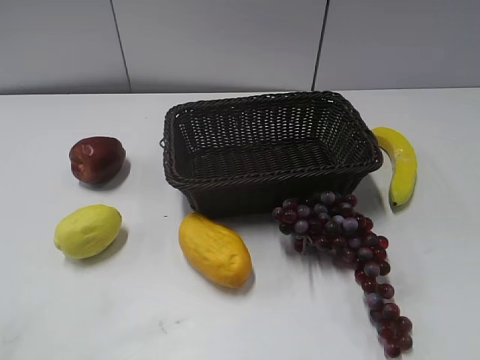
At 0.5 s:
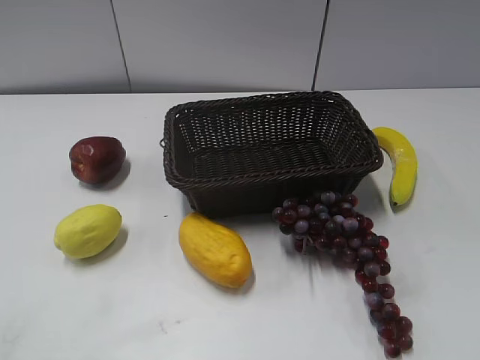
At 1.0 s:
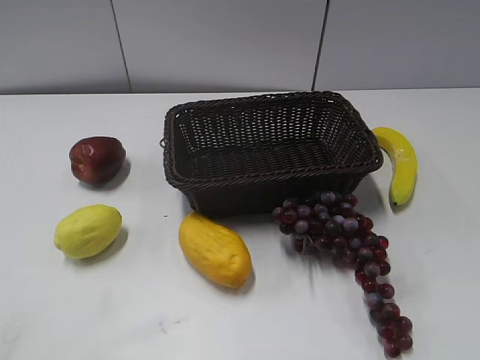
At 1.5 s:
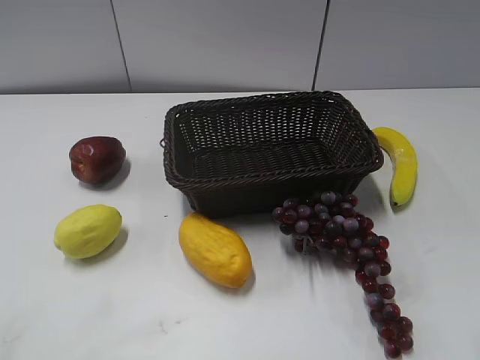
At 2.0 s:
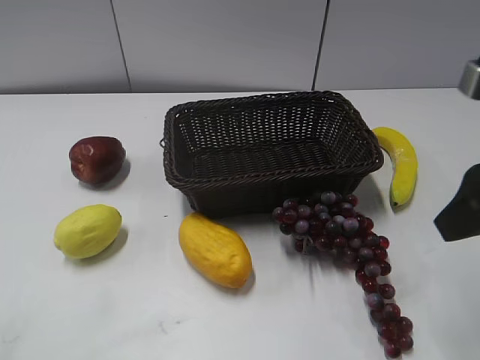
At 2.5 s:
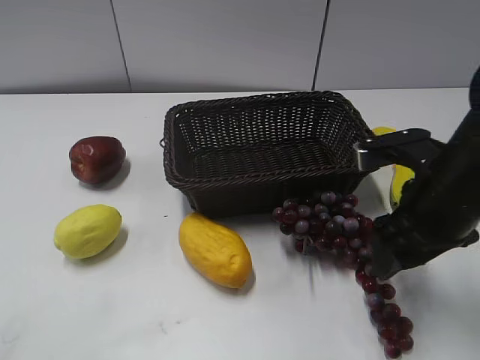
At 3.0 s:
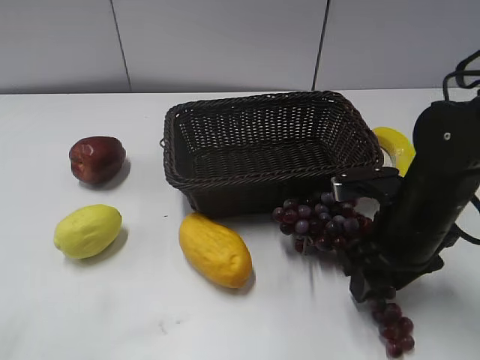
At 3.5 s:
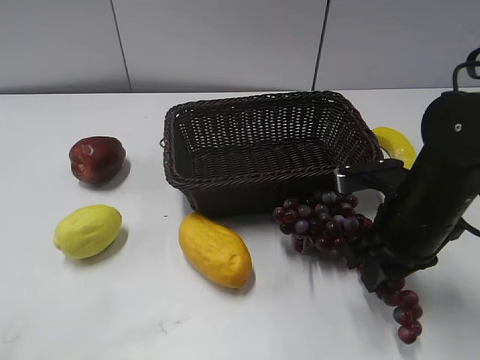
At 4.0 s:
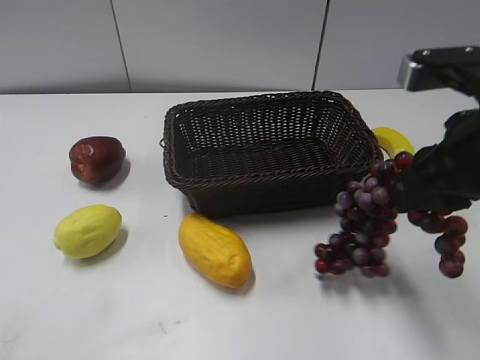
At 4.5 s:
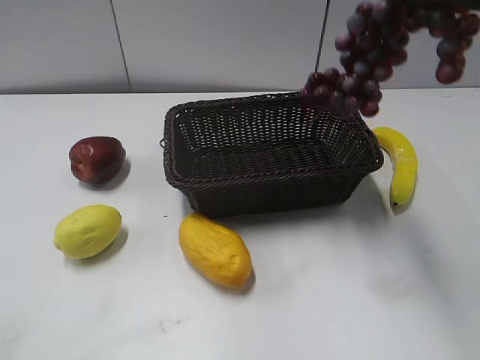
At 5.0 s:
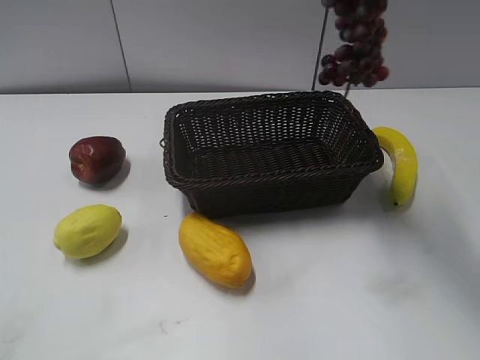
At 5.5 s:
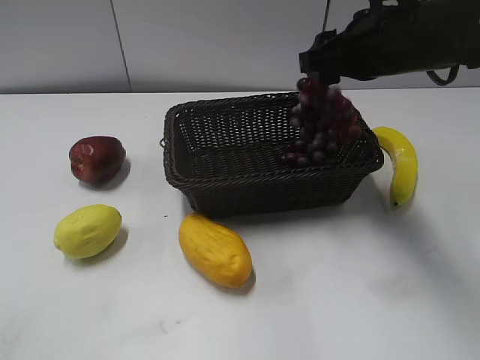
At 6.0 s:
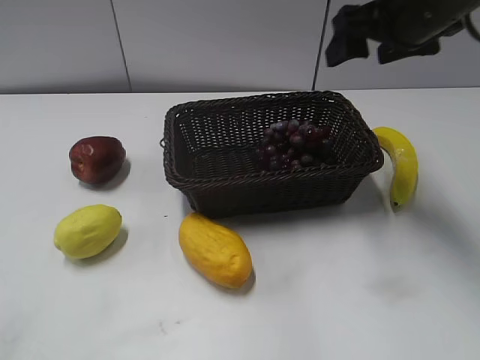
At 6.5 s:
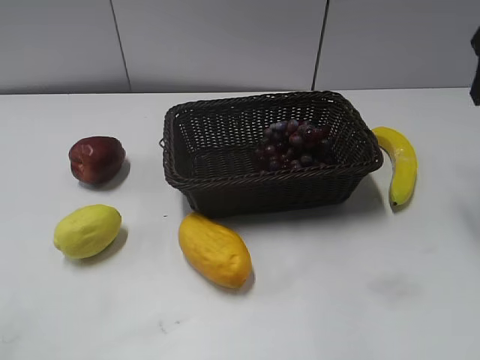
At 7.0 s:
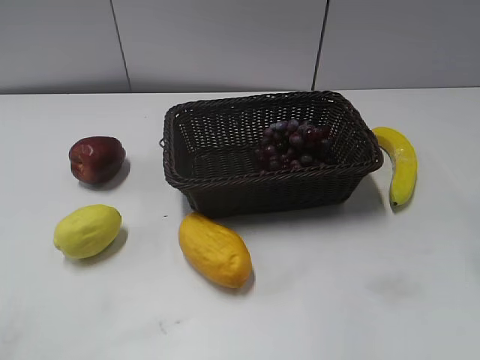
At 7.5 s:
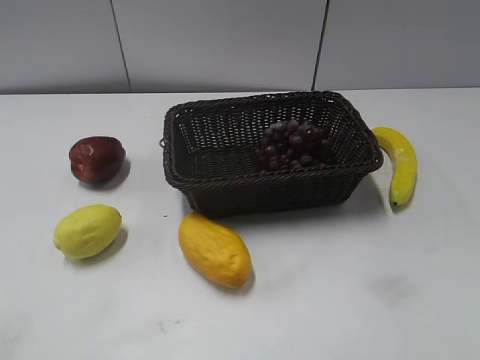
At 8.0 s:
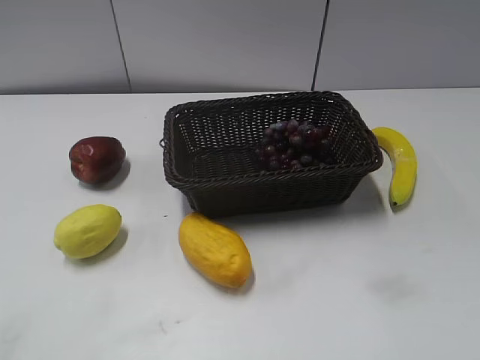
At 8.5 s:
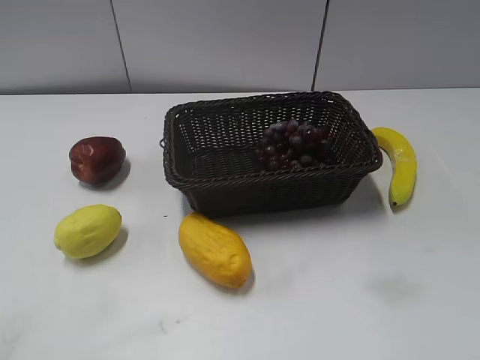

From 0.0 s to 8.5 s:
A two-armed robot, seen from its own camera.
Step, from 2.0 s to 3.5 s: Grasp the grape with right gripper.
Step, from 4.0 s to 5.5 s: Place the grape in the basket with right gripper.
From 2.0 s to 4.0 s: The right gripper reaches roughly 15 cm downward, then returns, and closes.
From 4.0 s to 6.5 s: The right gripper moves forward and to the right, about 15 cm, and opens up.

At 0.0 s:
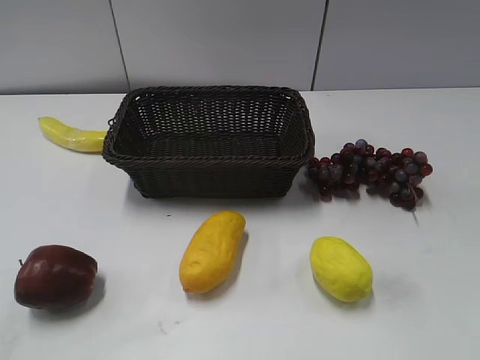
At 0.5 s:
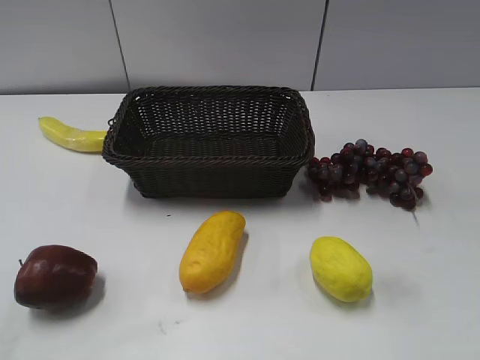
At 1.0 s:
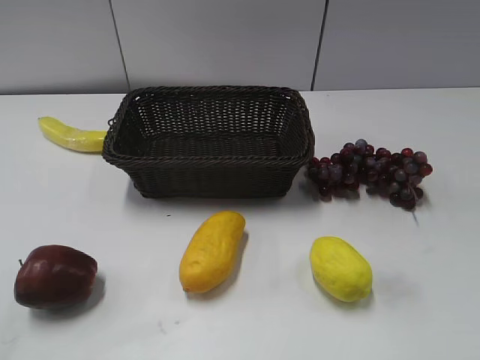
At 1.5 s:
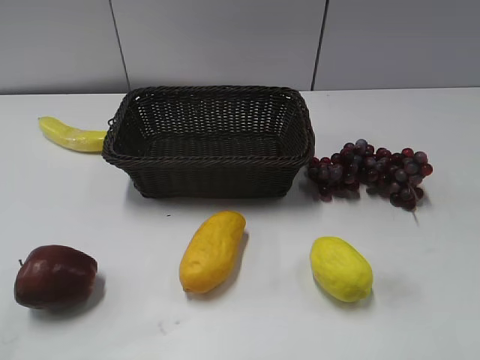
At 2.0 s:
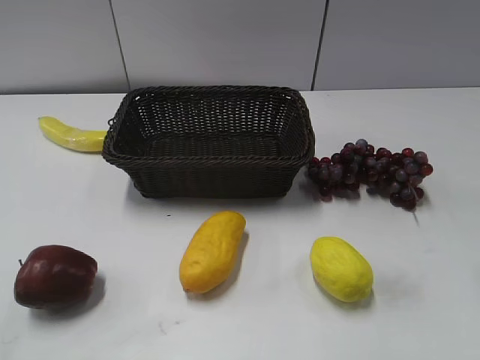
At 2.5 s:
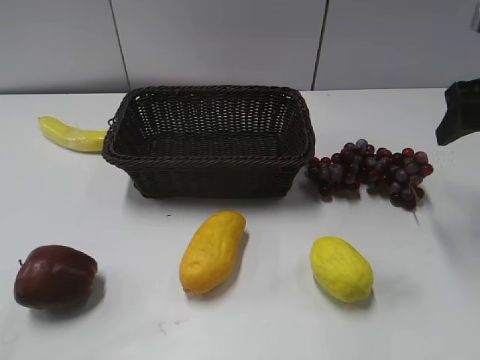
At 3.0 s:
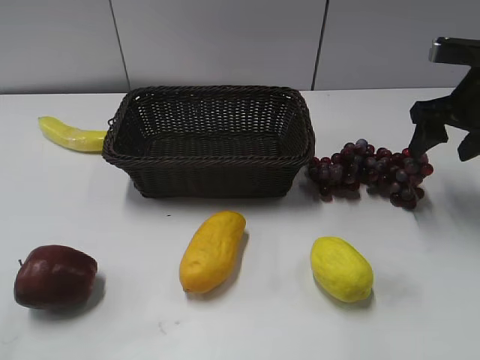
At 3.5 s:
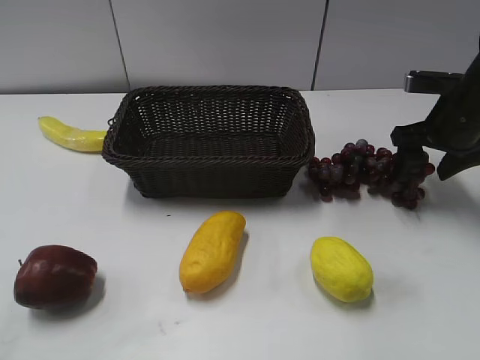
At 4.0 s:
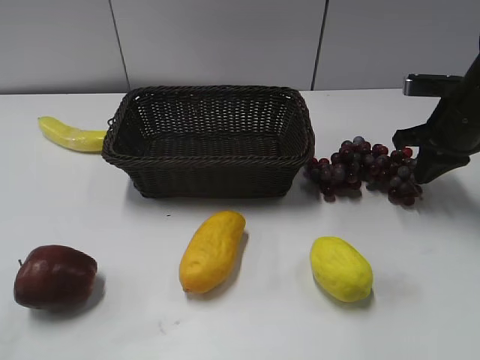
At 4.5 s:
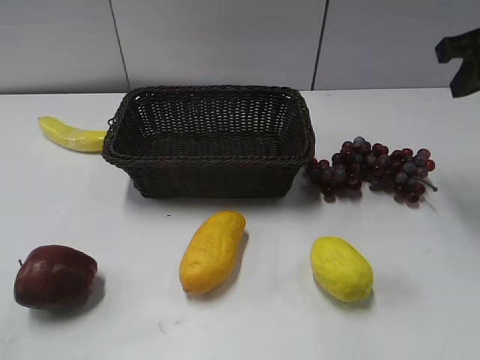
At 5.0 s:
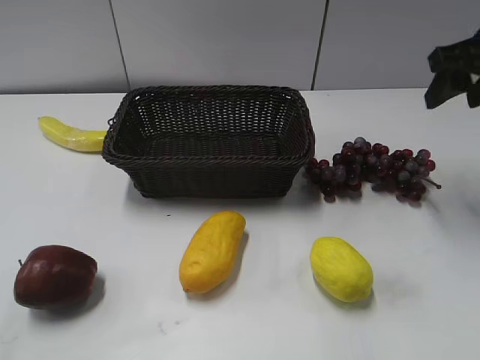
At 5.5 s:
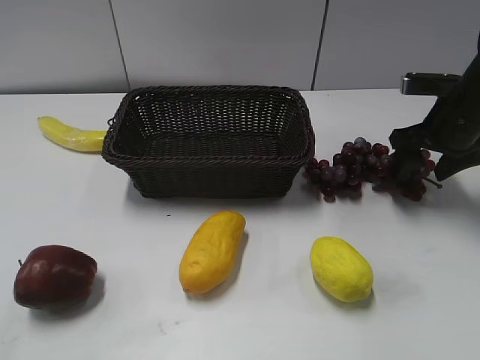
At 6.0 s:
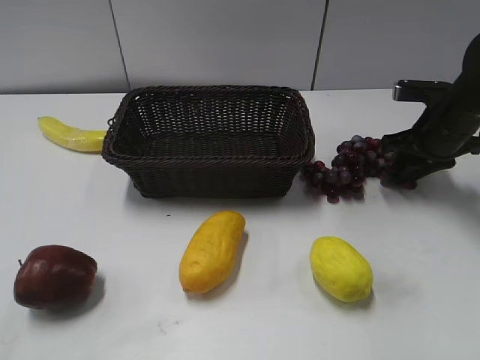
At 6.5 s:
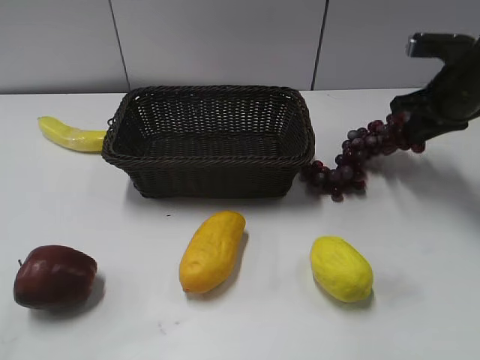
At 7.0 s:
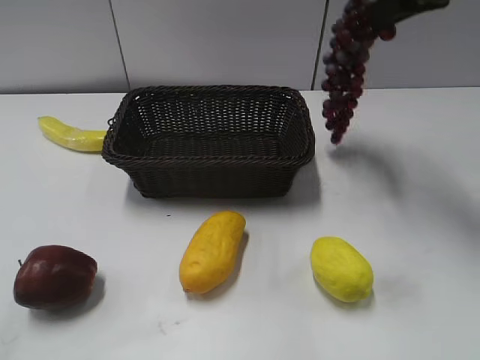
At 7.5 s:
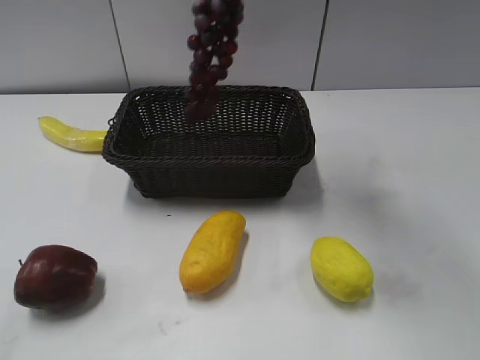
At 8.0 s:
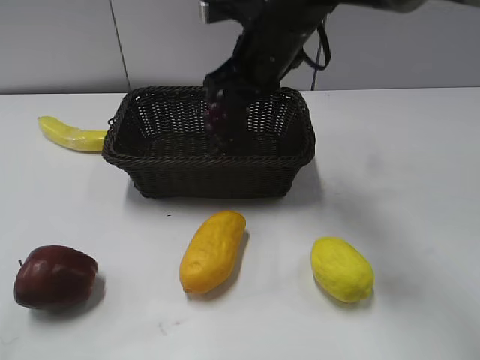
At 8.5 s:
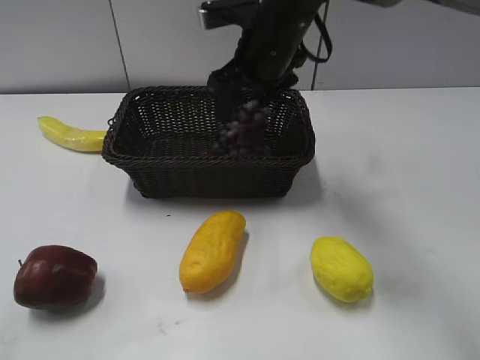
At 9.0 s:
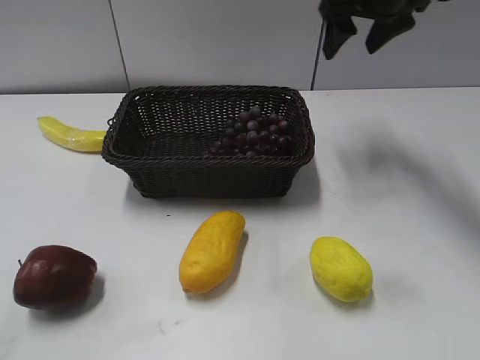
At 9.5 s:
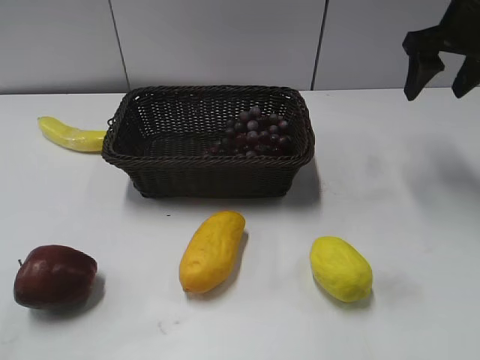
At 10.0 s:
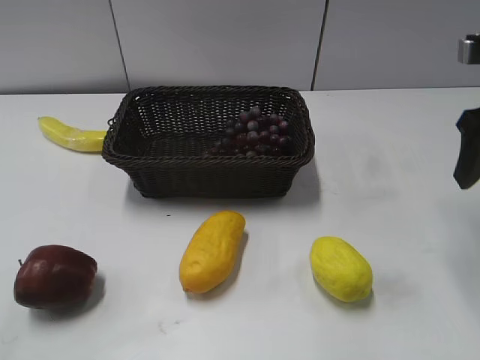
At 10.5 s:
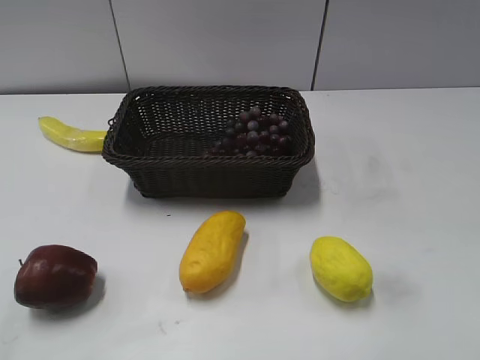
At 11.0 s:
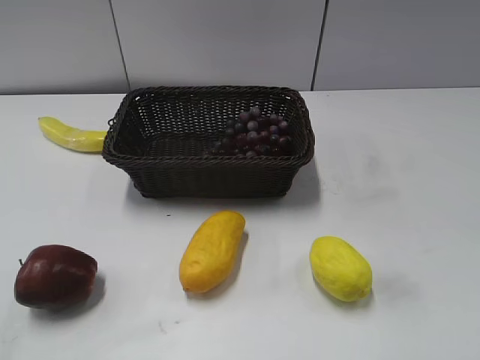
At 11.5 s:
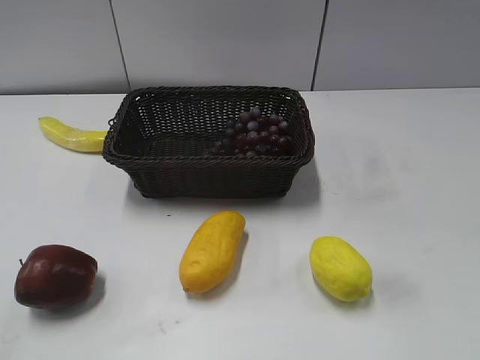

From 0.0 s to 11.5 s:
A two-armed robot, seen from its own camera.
Step, from 2.5 s to 6.5 s: Grasp the grape with right gripper.
Step, from 7.0 s to 8.5 s: Place the grape in the basket with right gripper.
From 2.0 s to 4.0 s: The right gripper is displaced forward and downward by approximately 25 cm, and closes up.
From 4.0 s to 6.0 s: The right gripper travels upward and back again, roughly 15 cm each way, and opens and closes again.
From 6.0 s to 7.5 s: The right gripper goes roughly 30 cm upward and to the left.
From 7.5 s to 9.5 s: The right gripper travels to the right and downward by roughly 20 cm, and opens.
From 9.5 s to 11.5 s: The right gripper travels backward by about 40 cm.
